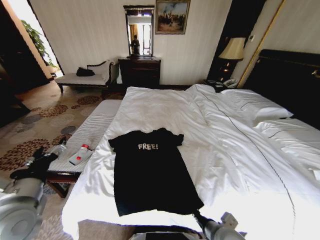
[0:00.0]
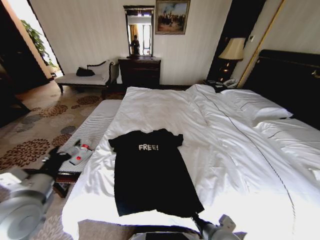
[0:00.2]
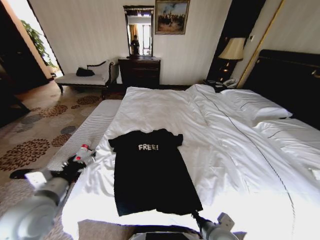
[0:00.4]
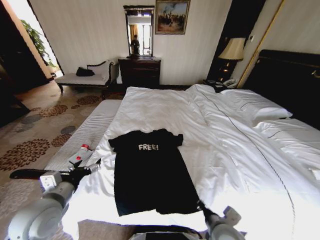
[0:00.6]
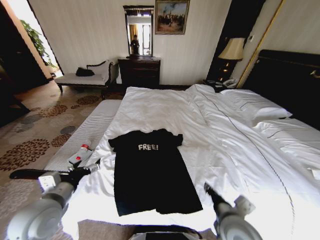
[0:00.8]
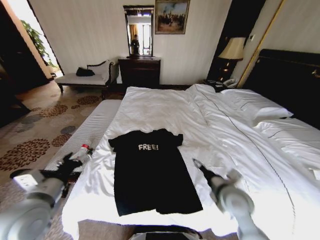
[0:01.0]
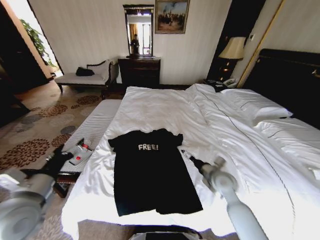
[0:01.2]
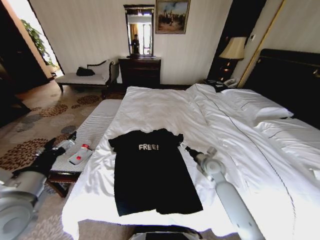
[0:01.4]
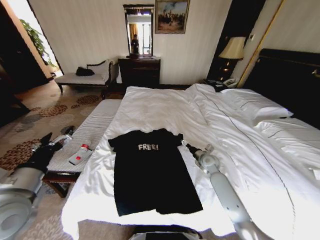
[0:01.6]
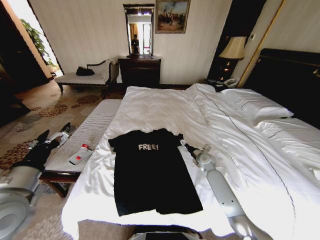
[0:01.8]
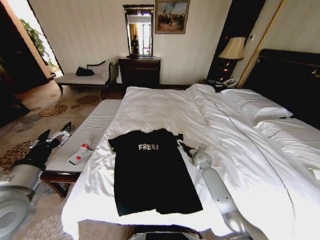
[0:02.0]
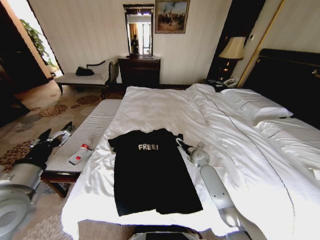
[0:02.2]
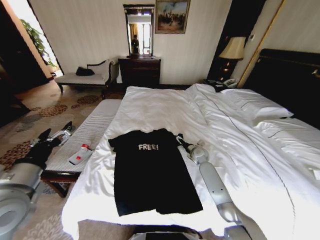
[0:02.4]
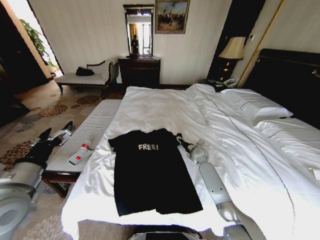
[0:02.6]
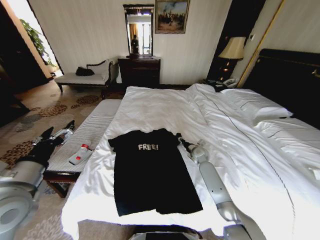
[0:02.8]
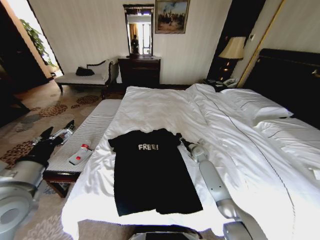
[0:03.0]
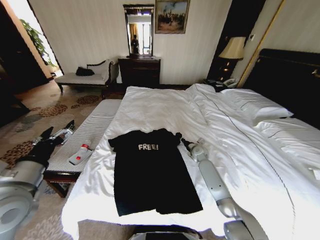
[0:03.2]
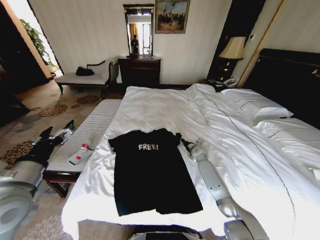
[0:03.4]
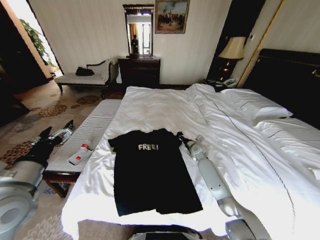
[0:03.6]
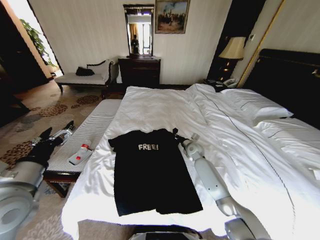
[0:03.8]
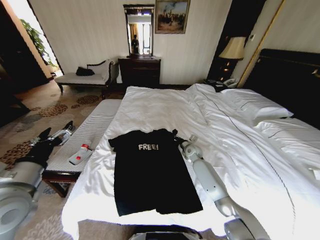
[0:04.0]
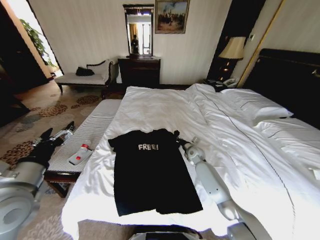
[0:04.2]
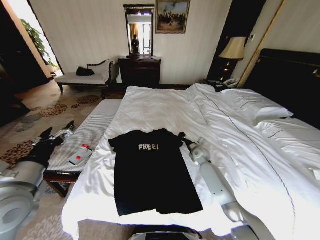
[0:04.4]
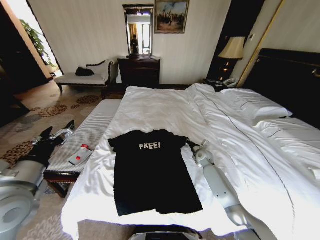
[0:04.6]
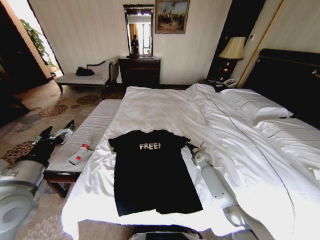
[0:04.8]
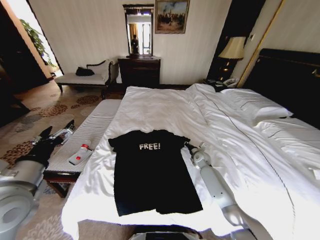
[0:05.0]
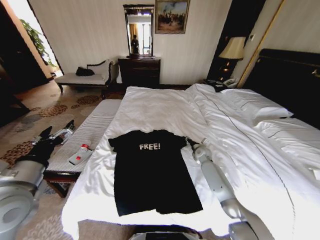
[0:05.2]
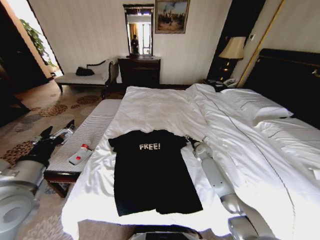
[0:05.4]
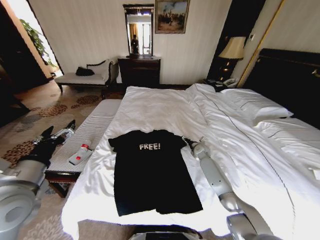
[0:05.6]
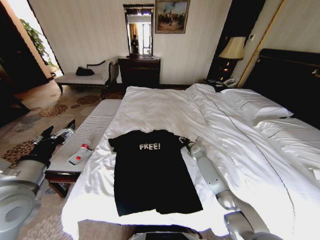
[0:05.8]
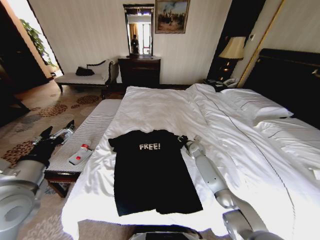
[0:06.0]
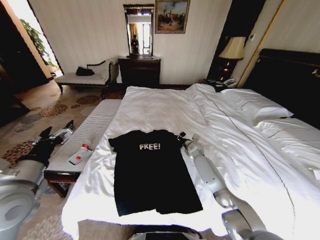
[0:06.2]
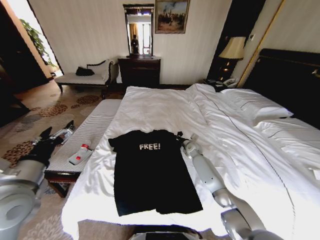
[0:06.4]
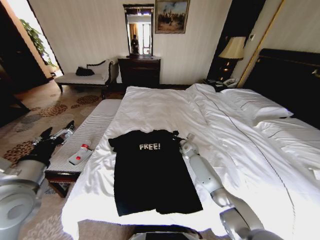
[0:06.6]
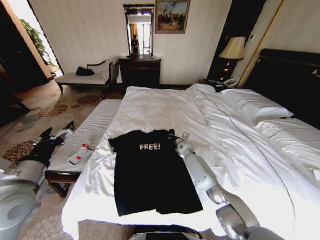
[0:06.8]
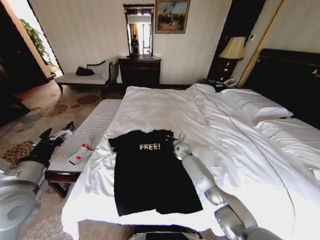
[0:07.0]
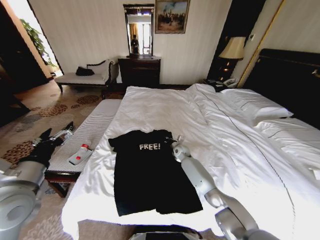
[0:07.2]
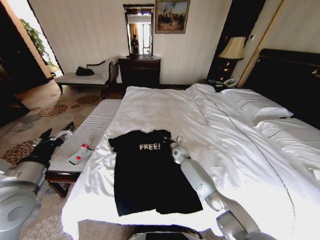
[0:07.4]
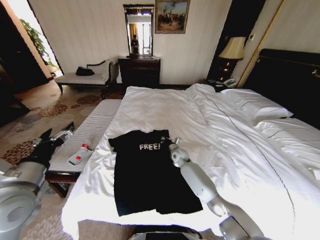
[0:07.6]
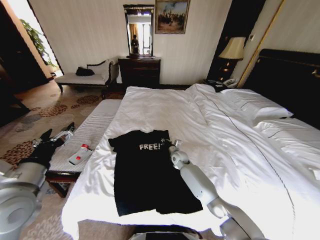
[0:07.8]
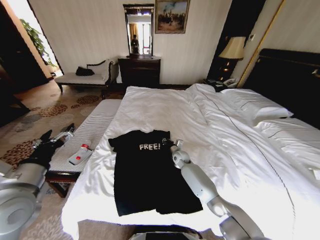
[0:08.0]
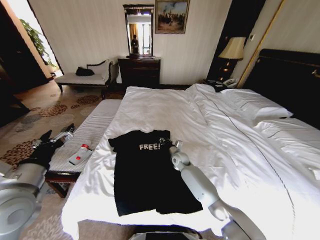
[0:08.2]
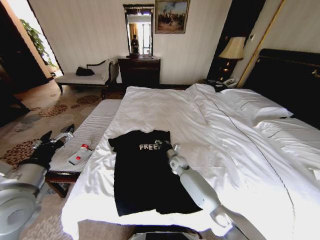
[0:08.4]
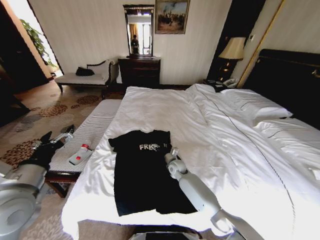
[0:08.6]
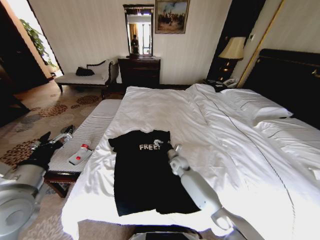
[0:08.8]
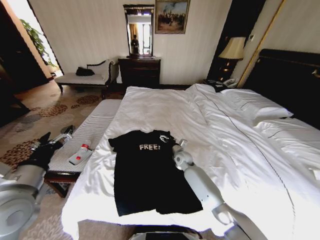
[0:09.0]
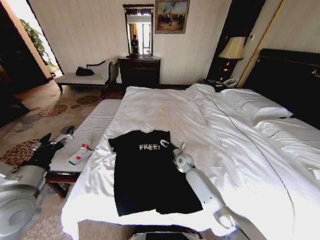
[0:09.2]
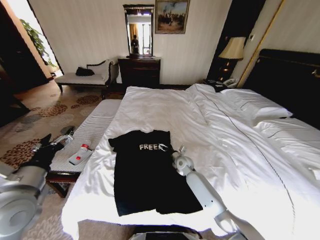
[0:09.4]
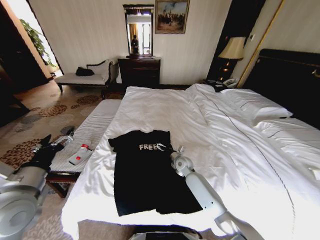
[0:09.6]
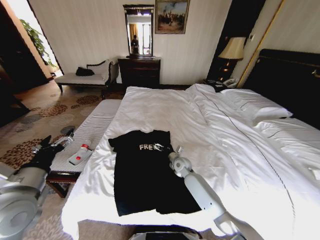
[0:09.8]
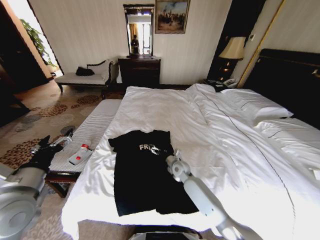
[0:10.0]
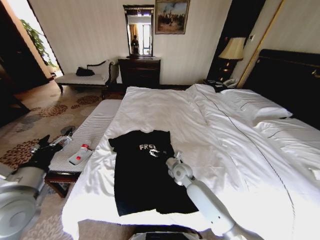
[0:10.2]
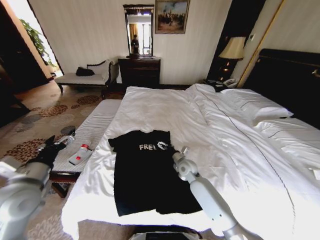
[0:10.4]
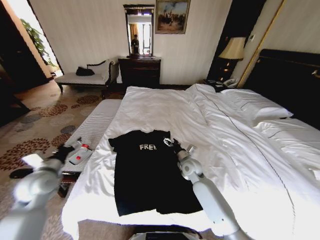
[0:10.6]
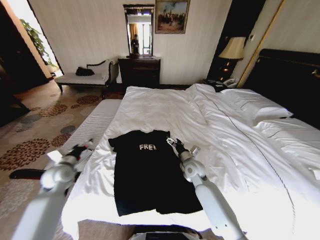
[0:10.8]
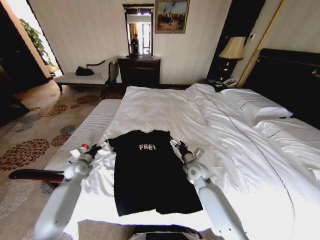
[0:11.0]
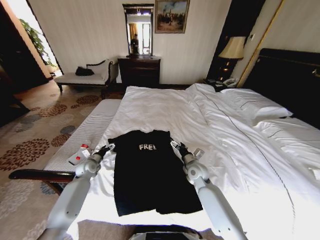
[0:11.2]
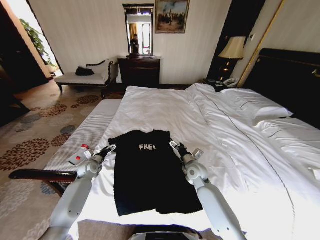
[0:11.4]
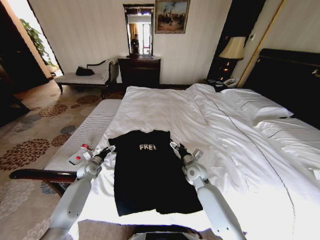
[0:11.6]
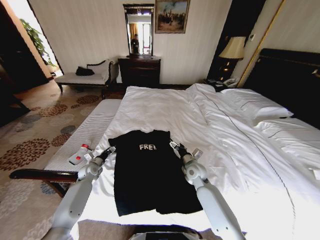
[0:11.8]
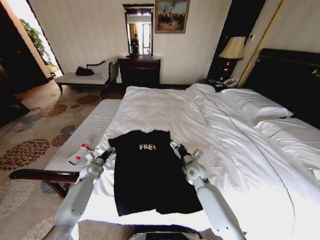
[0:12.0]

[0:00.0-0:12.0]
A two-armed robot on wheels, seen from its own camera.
Task of the whole recording: Fold the clothes on the bed.
0:00.0 to 0:01.6: The right gripper heads forward, covering some 30 cm, and opens up.
0:01.6 to 0:03.0: The right gripper travels forward by roughly 5 cm, and closes up.
0:03.0 to 0:04.4: The grippers make only small movements.
0:04.4 to 0:06.0: The right gripper changes place by about 5 cm, and opens its fingers.
0:06.0 to 0:07.6: The right gripper shifts about 10 cm to the left, and closes up.
0:07.6 to 0:09.0: The right gripper opens up.
0:09.0 to 0:10.4: The right gripper moves backward, about 5 cm.
0:10.4 to 0:12.0: The left gripper shifts about 35 cm downward and forward, and closes up.

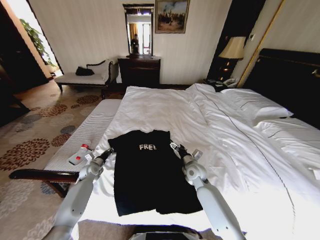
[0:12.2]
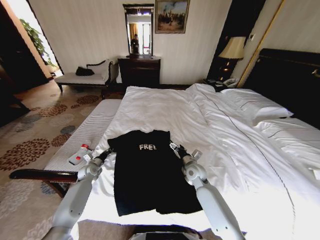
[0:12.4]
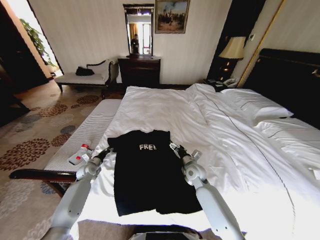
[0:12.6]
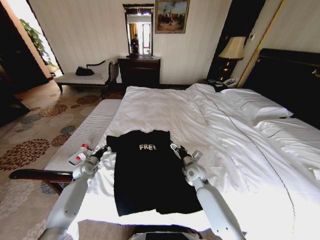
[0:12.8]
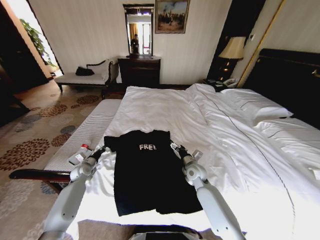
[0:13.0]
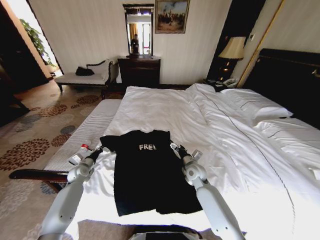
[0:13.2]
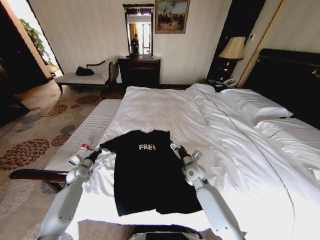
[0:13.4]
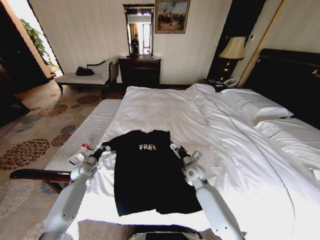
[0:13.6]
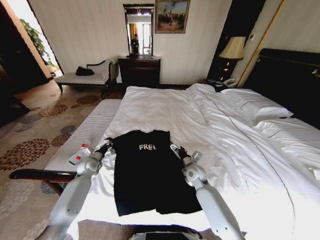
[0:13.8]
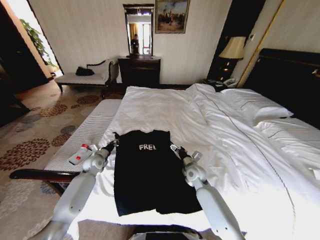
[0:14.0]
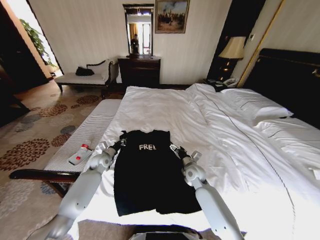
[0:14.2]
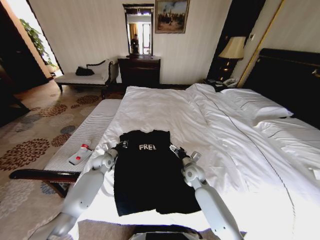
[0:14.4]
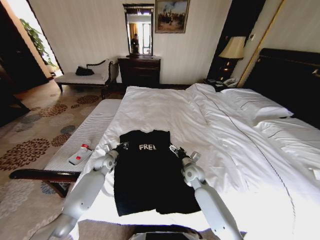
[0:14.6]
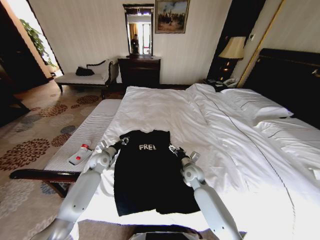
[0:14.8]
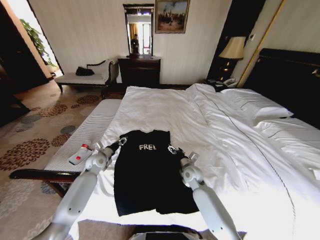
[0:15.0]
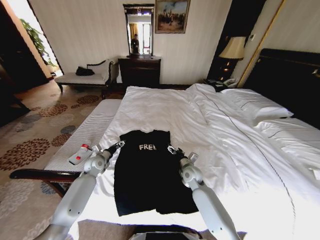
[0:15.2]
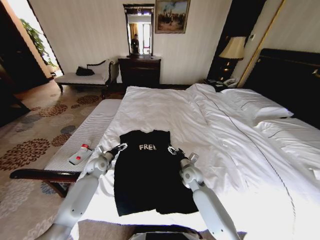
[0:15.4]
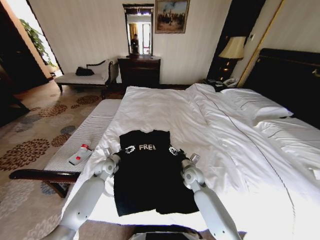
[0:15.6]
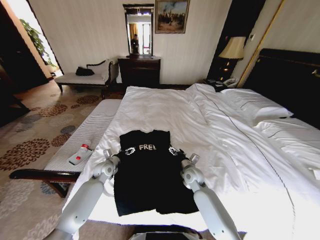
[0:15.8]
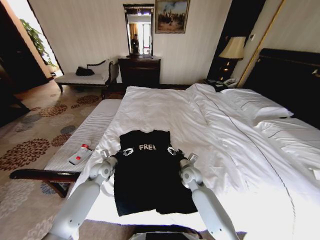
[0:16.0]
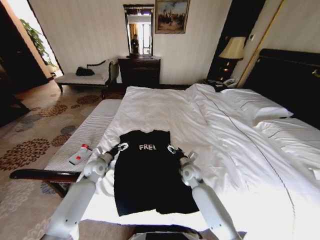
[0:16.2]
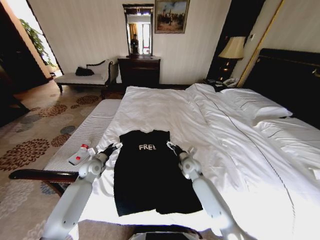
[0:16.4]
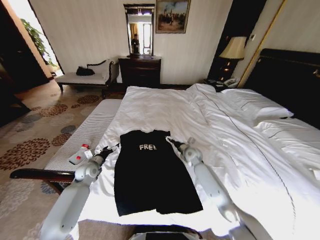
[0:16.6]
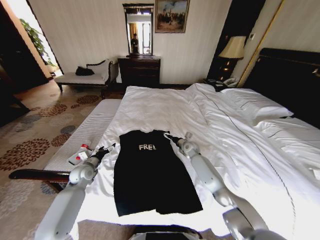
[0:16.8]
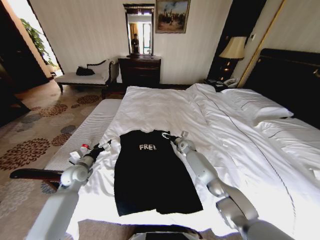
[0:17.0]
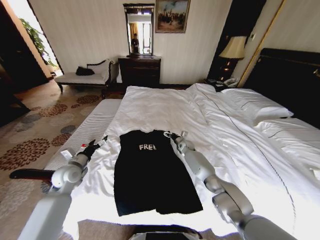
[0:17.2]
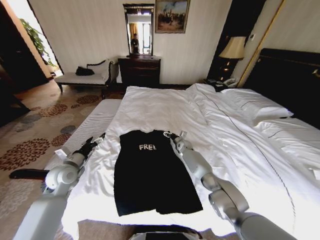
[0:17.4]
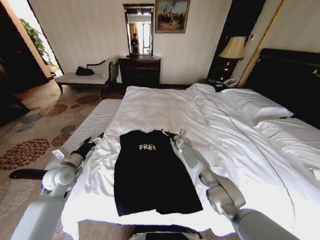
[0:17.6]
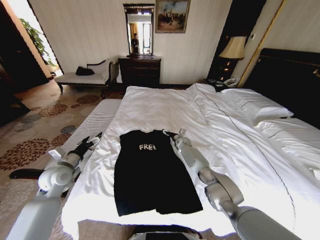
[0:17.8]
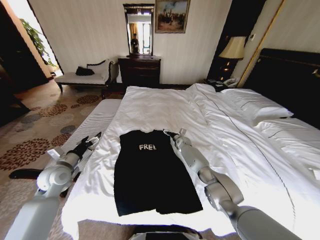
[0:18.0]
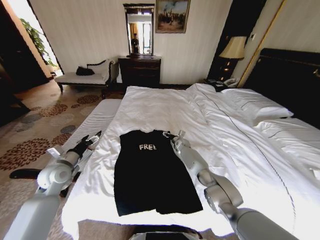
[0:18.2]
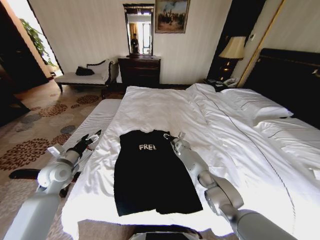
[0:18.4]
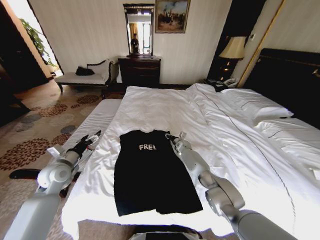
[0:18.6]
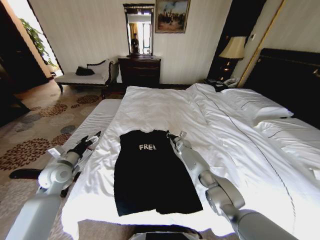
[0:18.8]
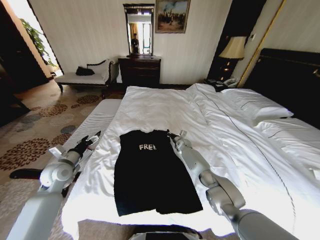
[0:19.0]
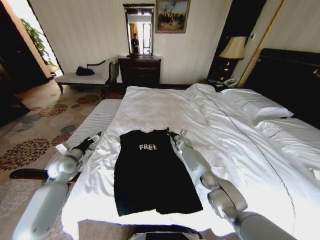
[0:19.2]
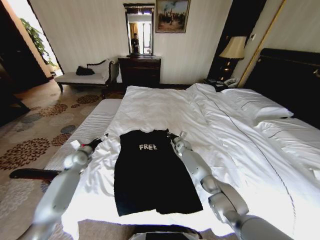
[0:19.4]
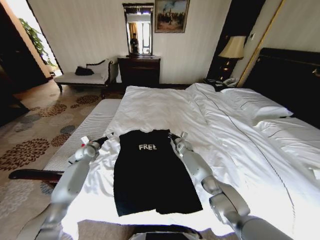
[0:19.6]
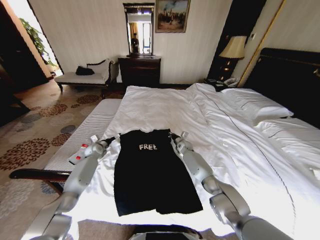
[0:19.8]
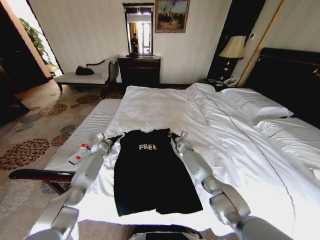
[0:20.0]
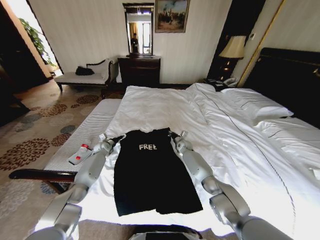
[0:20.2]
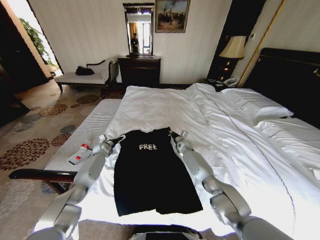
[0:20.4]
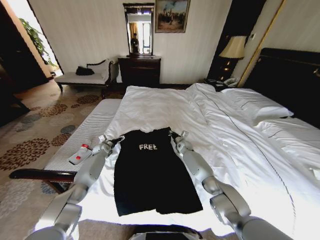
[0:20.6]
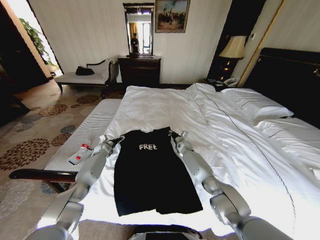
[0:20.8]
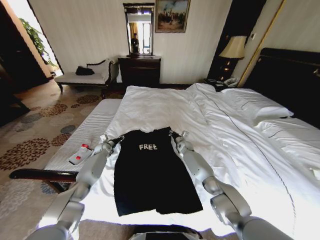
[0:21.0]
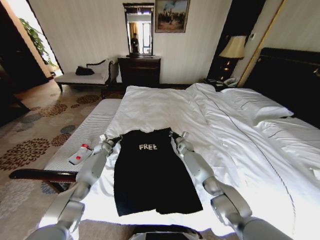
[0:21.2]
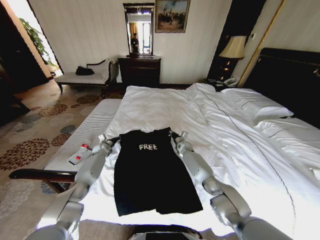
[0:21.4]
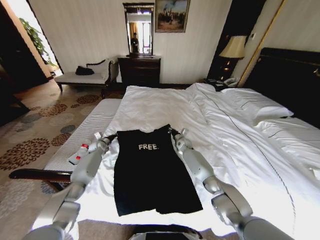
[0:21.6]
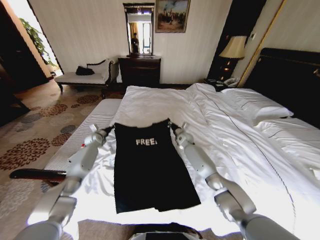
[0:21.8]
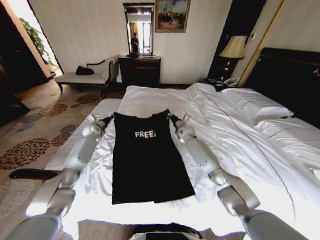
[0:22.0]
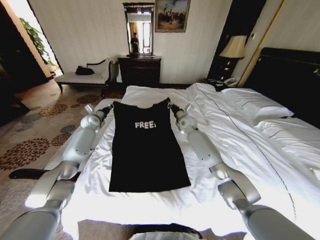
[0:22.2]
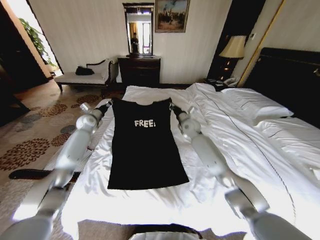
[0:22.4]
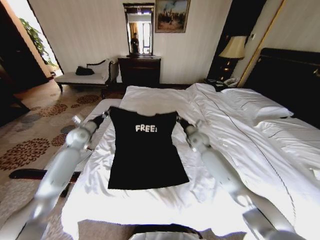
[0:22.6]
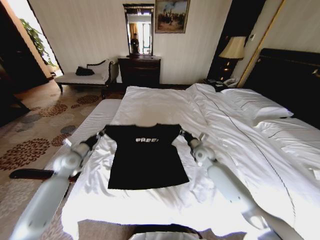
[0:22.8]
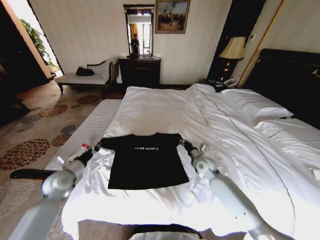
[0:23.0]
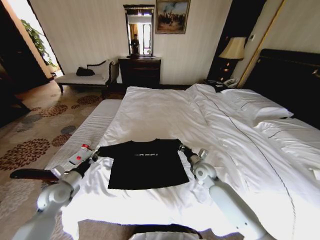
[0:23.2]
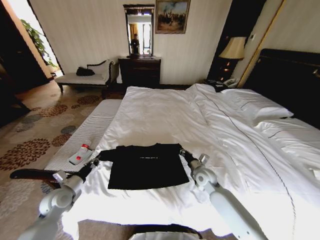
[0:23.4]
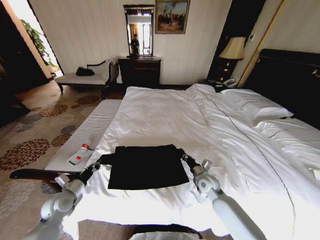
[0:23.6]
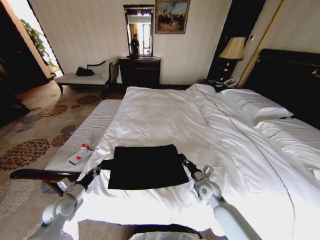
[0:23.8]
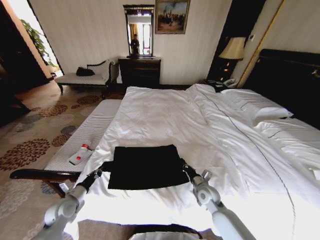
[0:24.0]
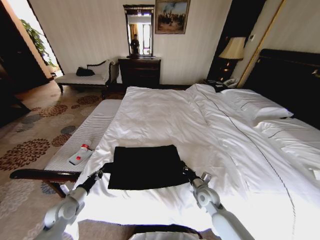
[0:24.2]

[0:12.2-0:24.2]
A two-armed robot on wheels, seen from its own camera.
Task of the whole recording: Fold the clothes on the bed.
0:12.2 to 0:13.8: The left gripper goes approximately 5 cm upward.
0:13.8 to 0:15.2: The left gripper opens its fingers.
0:15.2 to 0:16.6: The right gripper travels forward by about 10 cm.
0:16.6 to 0:18.2: The right gripper goes about 10 cm forward, while the left gripper moves upward and backward, some 15 cm.
0:18.2 to 0:19.8: The right gripper closes. The left gripper is displaced forward and downward by some 25 cm.
0:19.8 to 0:21.2: The left gripper changes place by approximately 5 cm, and closes its fingers.
0:21.2 to 0:22.6: The left gripper goes approximately 15 cm upward, while the right gripper travels upward and backward by roughly 15 cm.
0:22.6 to 0:24.2: The two grippers go roughly 30 cm backward and downward.
